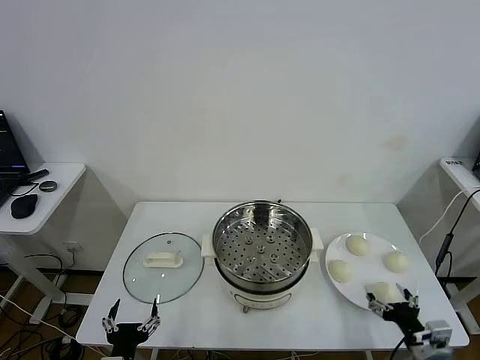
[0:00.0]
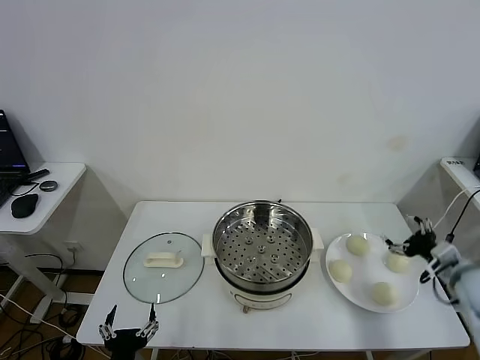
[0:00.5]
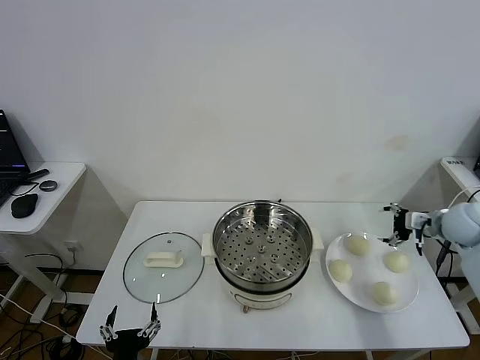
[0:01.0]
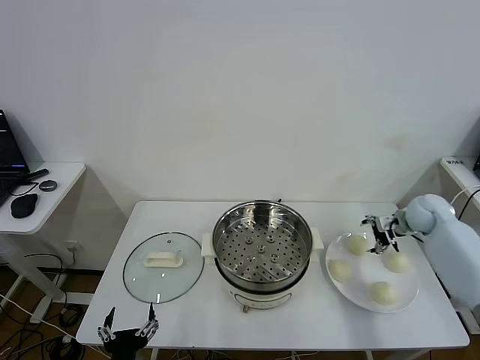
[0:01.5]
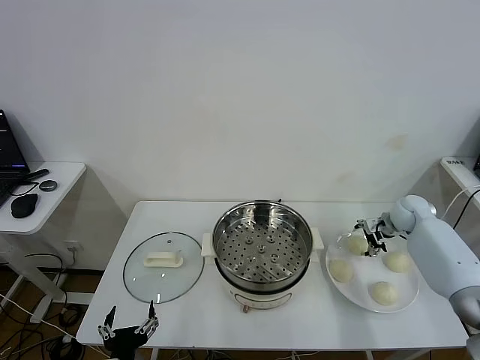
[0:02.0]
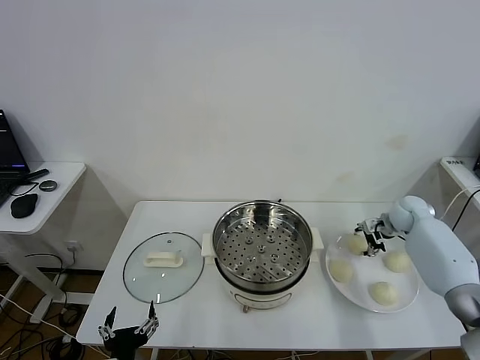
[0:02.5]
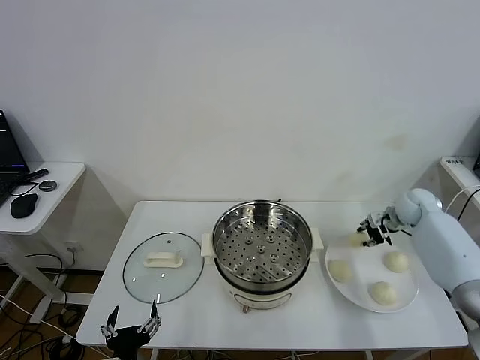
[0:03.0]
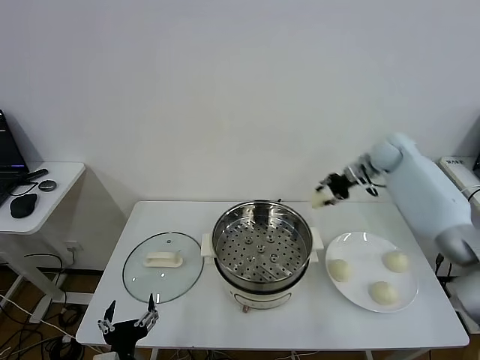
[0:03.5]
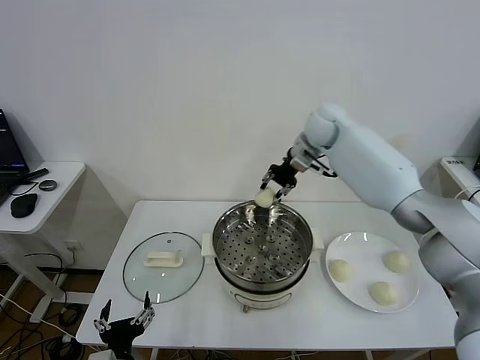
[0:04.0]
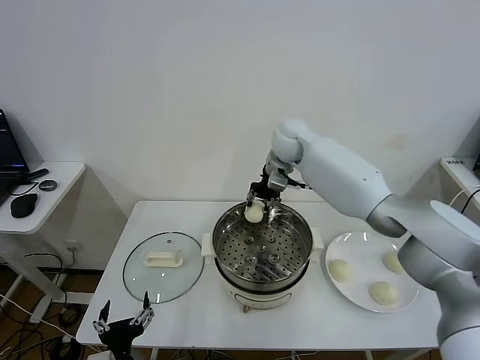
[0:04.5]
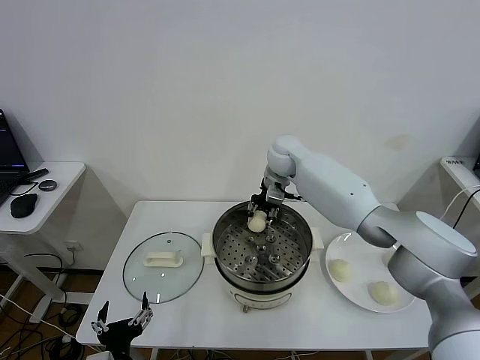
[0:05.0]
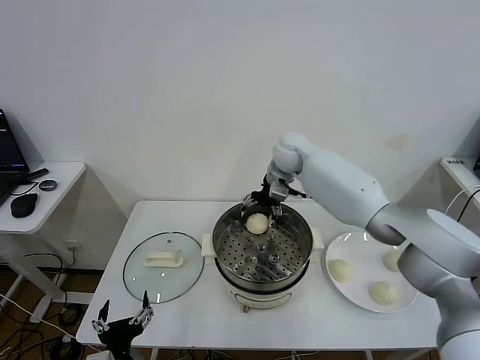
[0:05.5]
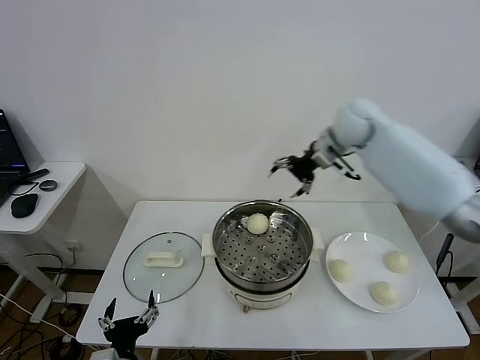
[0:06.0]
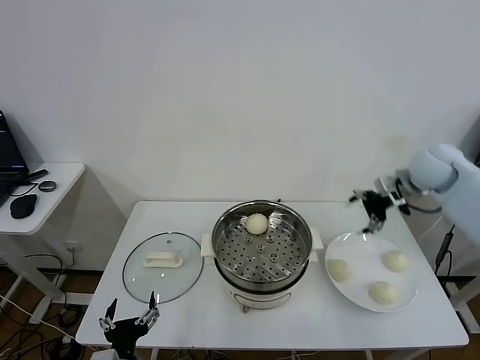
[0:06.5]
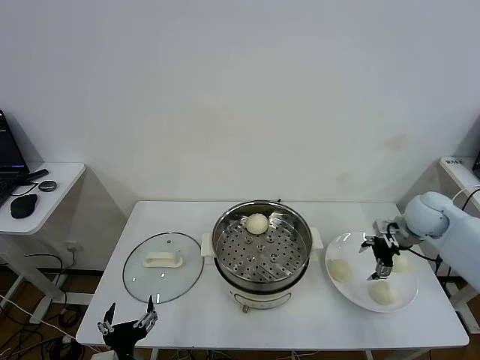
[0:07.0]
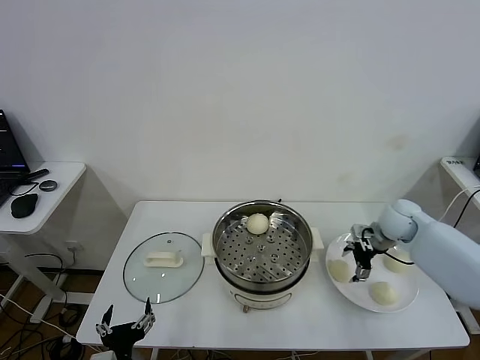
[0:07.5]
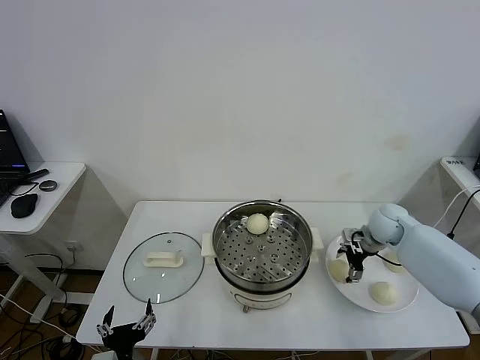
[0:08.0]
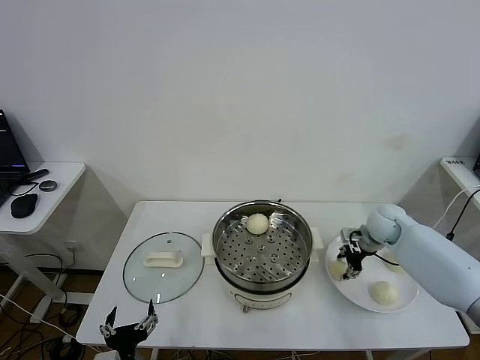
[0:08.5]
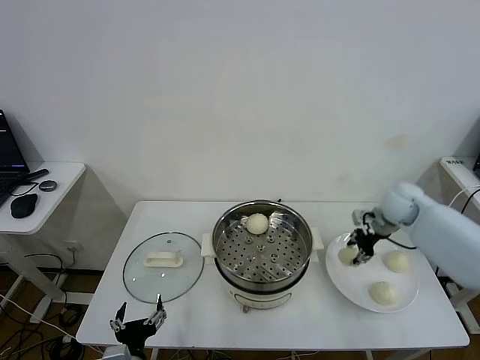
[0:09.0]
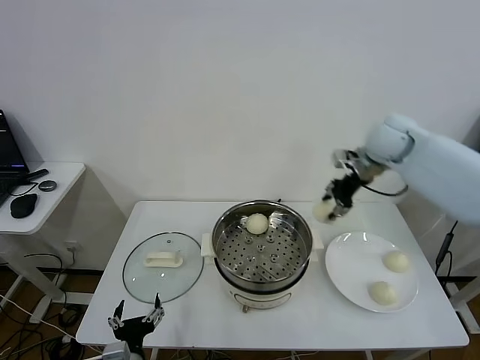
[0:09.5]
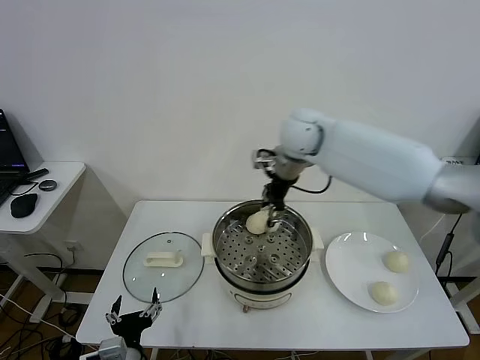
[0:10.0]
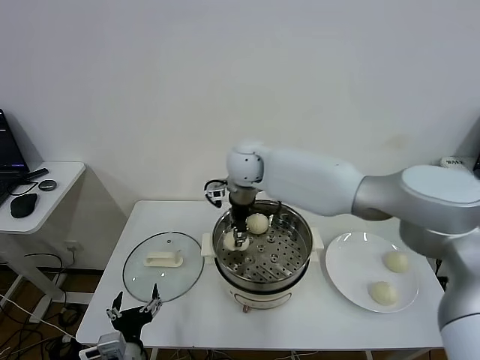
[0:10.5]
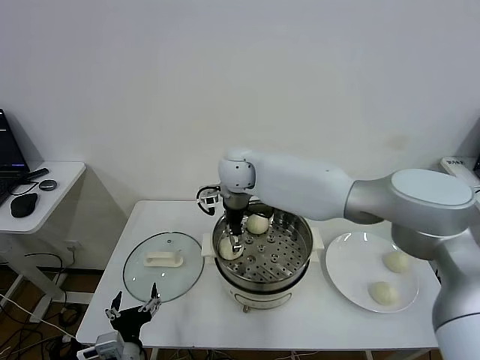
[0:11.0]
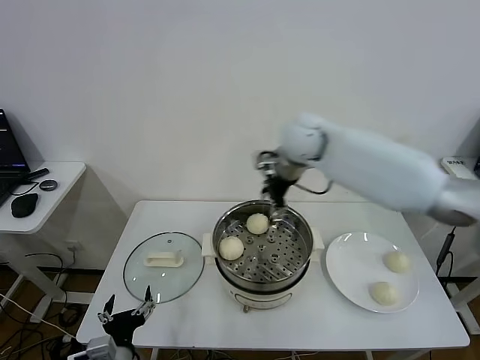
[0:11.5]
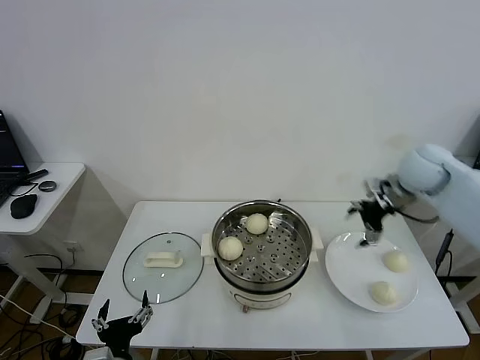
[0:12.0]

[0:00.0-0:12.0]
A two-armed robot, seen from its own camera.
Task of the whole recording: take steamed baozi put them in steamer.
Step, 0:00.0 to 0:02.5: Grasp the baozi in the plate with right gripper.
Step, 0:03.0 to 0:05.0: Place the baozi on the steamer with right gripper.
Step, 0:05.5 to 0:08.0: Grasp the baozi in the plate with right gripper.
Step, 0:09.0 to 0:11.0: Place the baozi on the steamer with right gripper.
0:02.0 to 0:04.0: The right gripper travels to the left and upward by approximately 35 cm, and closes up.
0:04.0 to 0:06.0: The right gripper shifts some 10 cm to the right, and opens up.
0:06.0 to 0:08.0: The right gripper moves downward and to the right, some 25 cm.
0:08.0 to 0:10.0: The right gripper shifts roughly 35 cm to the left and upward, and closes.
0:10.0 to 0:12.0: The right gripper heads to the right, covering about 25 cm, and opens up.

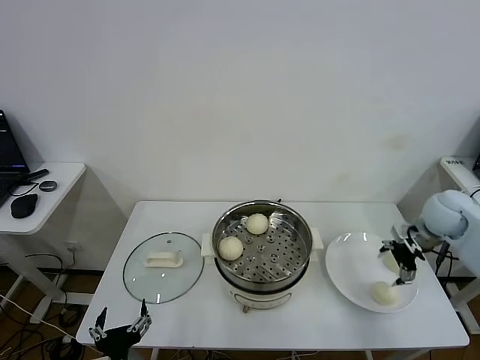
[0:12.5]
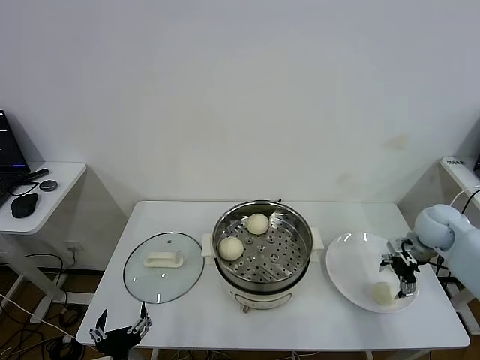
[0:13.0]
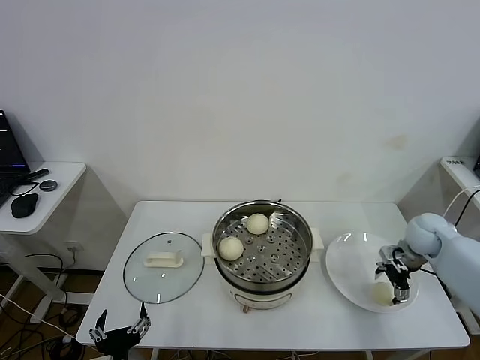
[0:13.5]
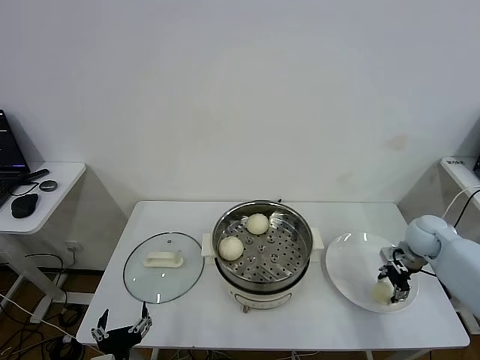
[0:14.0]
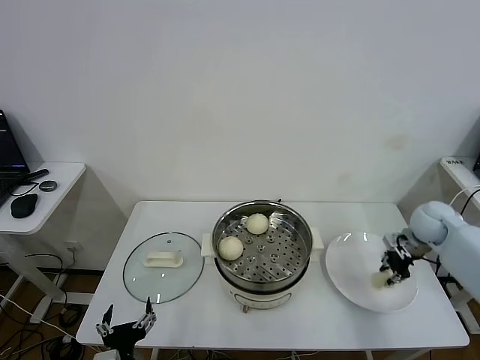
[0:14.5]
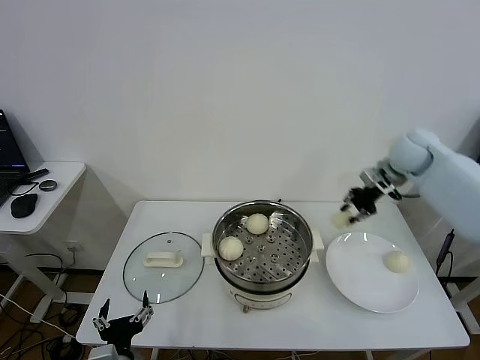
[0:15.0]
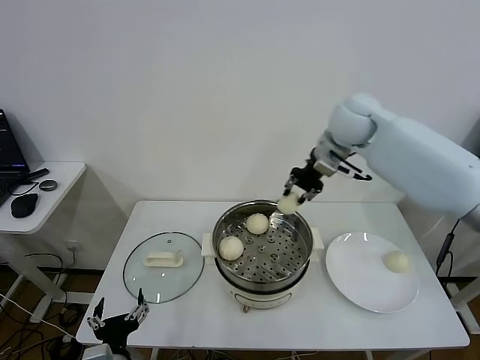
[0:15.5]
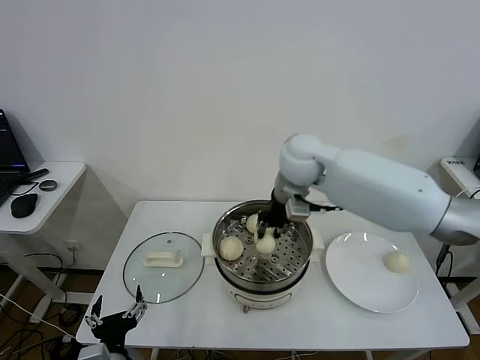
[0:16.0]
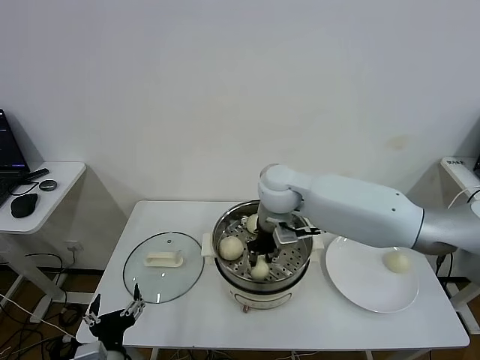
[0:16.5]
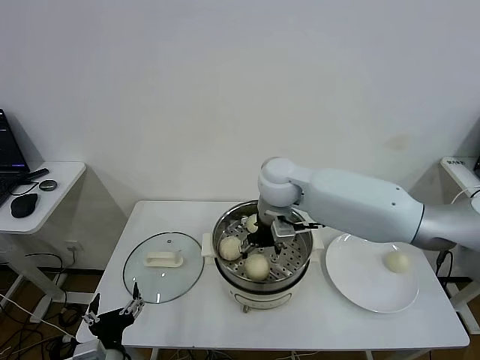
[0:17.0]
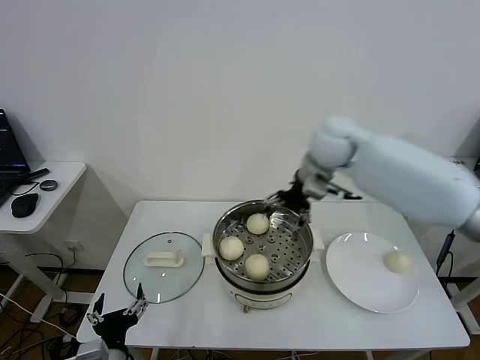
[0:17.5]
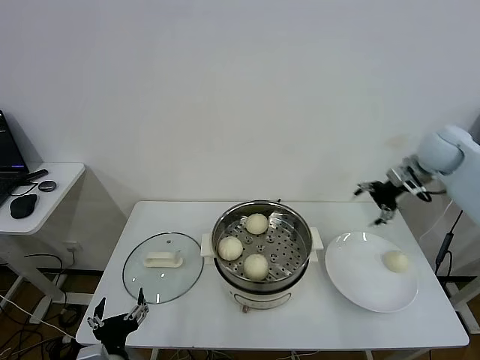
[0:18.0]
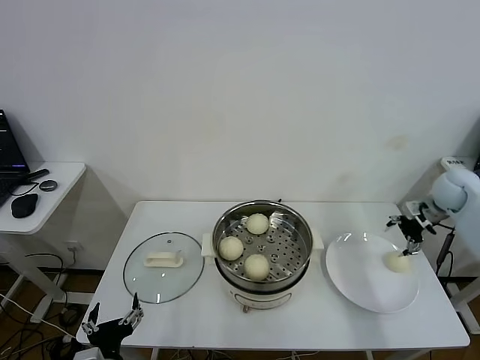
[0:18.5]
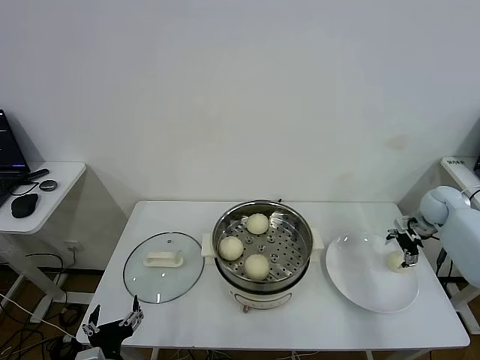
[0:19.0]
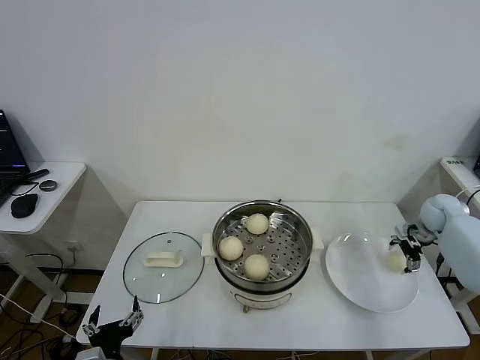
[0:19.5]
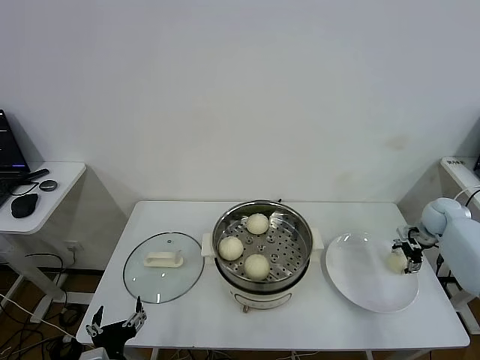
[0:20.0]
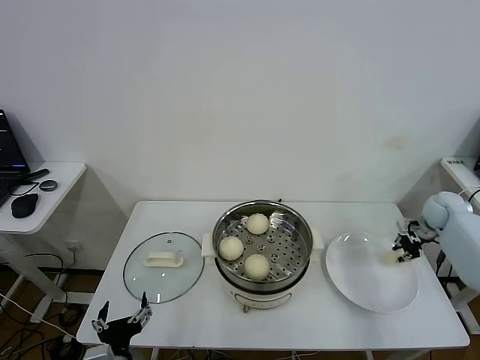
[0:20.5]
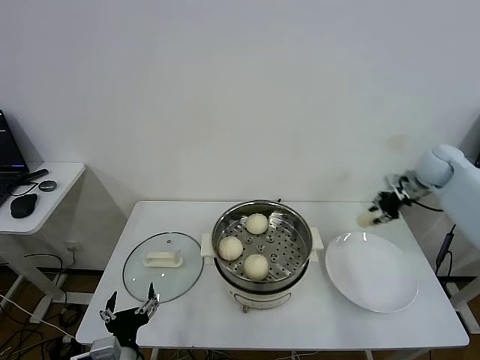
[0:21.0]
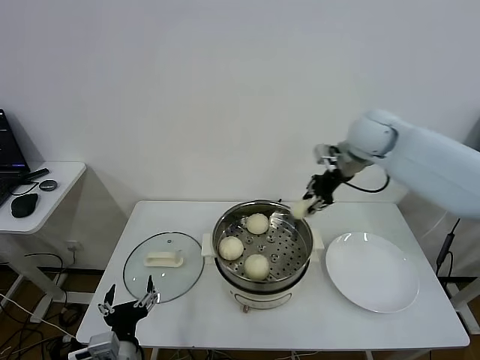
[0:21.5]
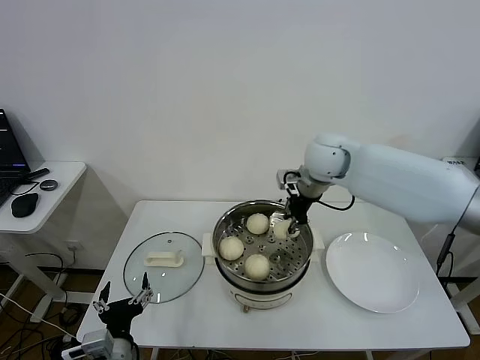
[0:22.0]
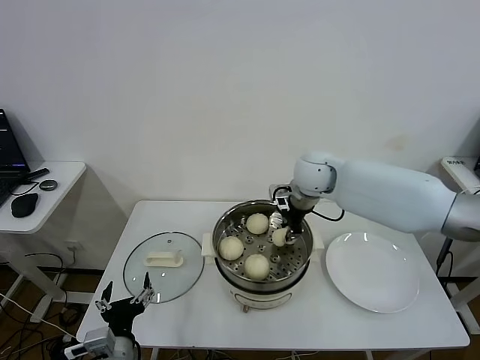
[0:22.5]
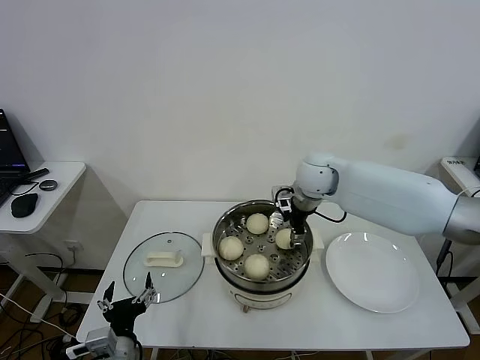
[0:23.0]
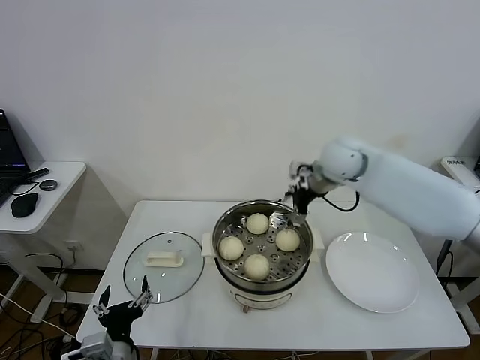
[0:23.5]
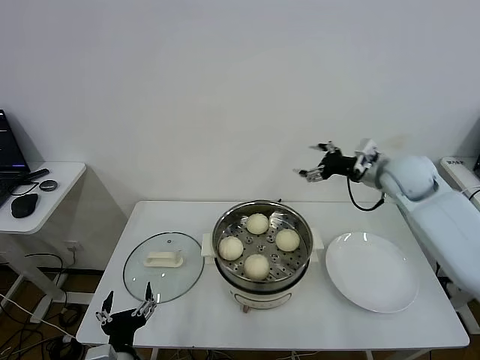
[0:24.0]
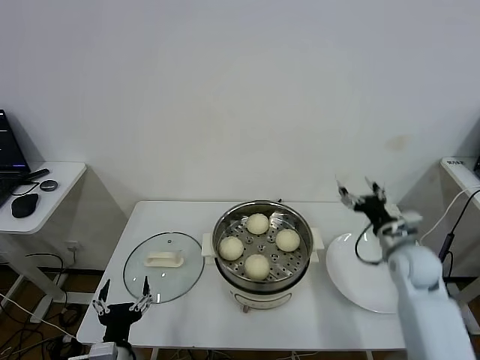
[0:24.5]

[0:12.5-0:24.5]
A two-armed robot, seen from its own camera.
Task of the whole recording: take steamed baozi put them in steamer.
Step, 0:12.5 to 0:14.0: Grasp the baozi in the plate with right gripper.
Step, 0:14.5 to 0:17.0: Place the baozi on the steamer with right gripper.
Step, 0:17.5 to 0:20.0: Grasp the baozi in the plate with right gripper.
Step, 0:20.5 to 0:23.0: Place the baozi on the steamer with right gripper.
0:12.5 to 0:14.5: The right gripper is displaced downward by approximately 5 cm, and closes up.
0:14.5 to 0:16.5: The right gripper travels to the left by some 40 cm.
0:16.5 to 0:18.5: The right gripper moves to the right, about 40 cm, and opens.
0:18.5 to 0:20.5: The right gripper heads downward, covering some 10 cm, and closes its fingers.
0:20.5 to 0:22.5: The right gripper is displaced to the left by roughly 35 cm.
0:22.5 to 0:24.5: The right gripper heads to the right, downward and backward, covering approximately 30 cm, and opens its fingers.

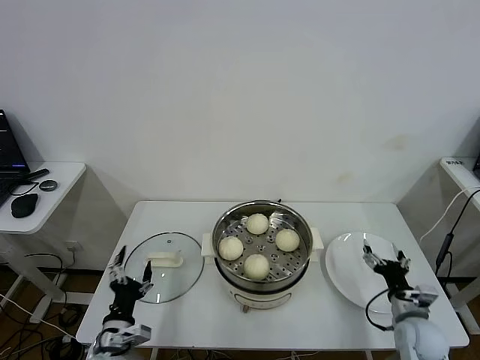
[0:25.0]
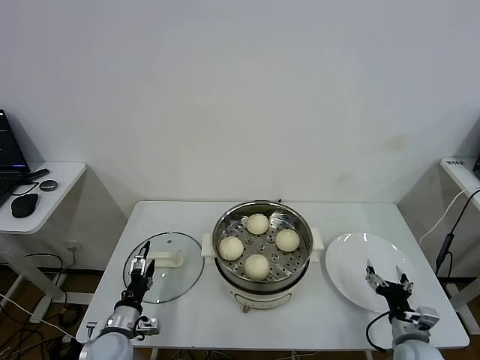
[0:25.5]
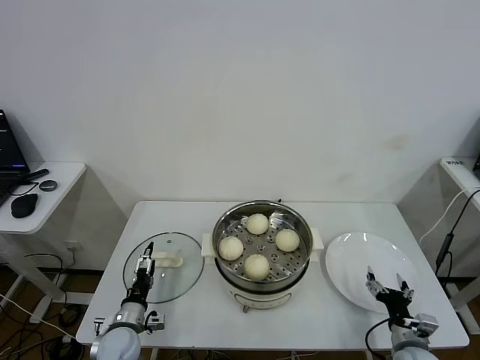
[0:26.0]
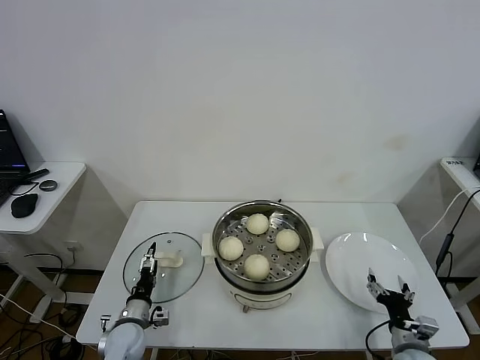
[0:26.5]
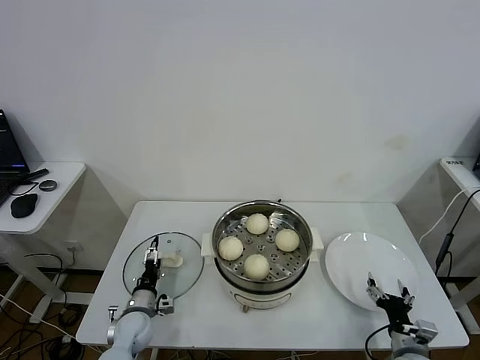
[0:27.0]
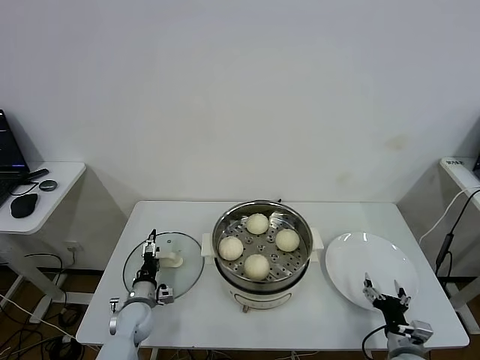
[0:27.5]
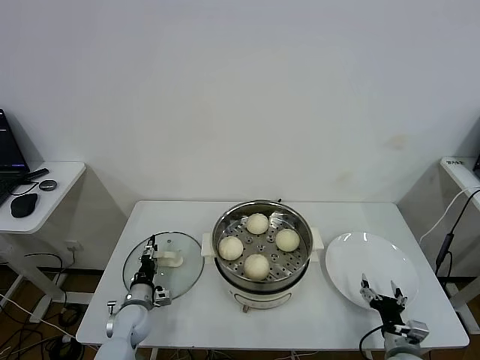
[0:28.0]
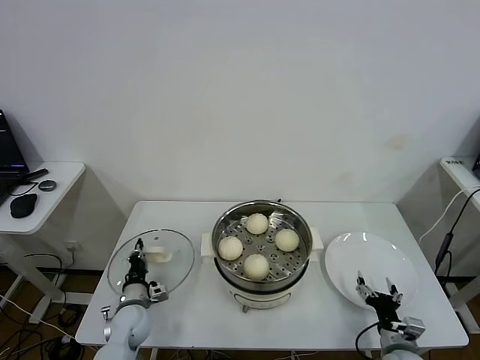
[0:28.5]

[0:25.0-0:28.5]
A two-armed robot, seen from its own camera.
Task of the whole recording: take steamed baozi put them in steamer.
Step, 0:25.0 to 0:28.5: Grasp the pot lid with left gripper.
0:25.0 to 0:27.0: The left gripper is displaced forward and downward by approximately 15 cm, while the right gripper shifts about 10 cm backward and downward.
0:27.0 to 0:28.5: The left gripper closes up.
